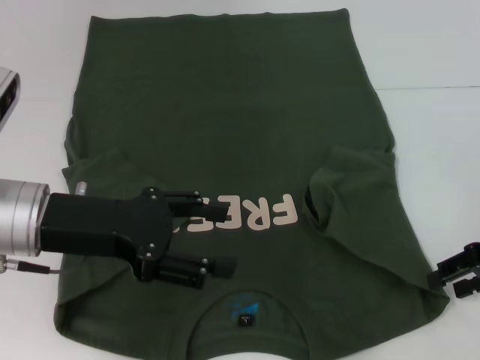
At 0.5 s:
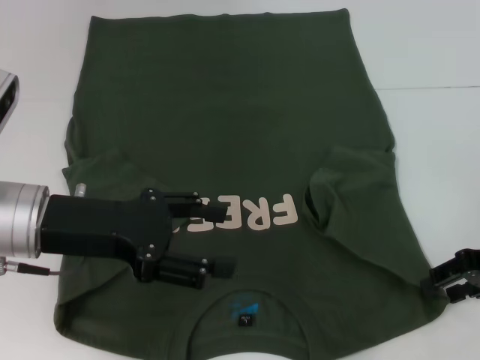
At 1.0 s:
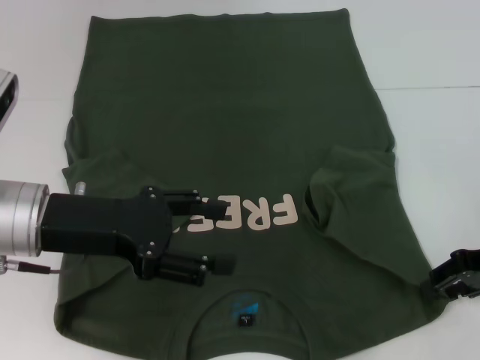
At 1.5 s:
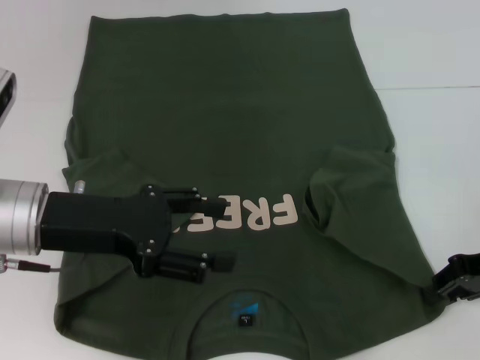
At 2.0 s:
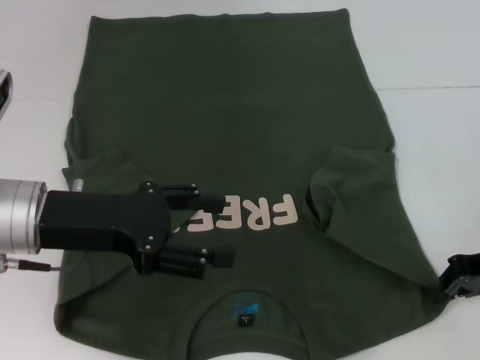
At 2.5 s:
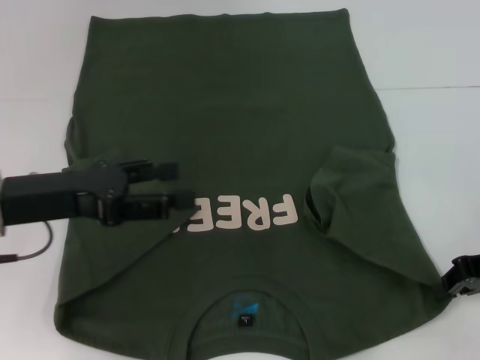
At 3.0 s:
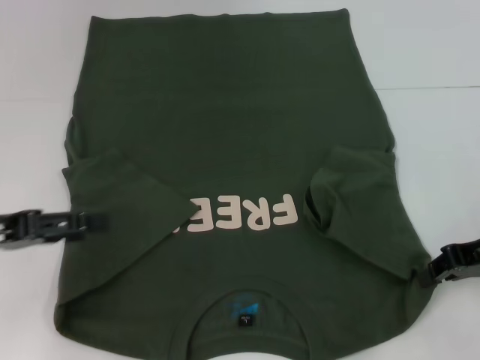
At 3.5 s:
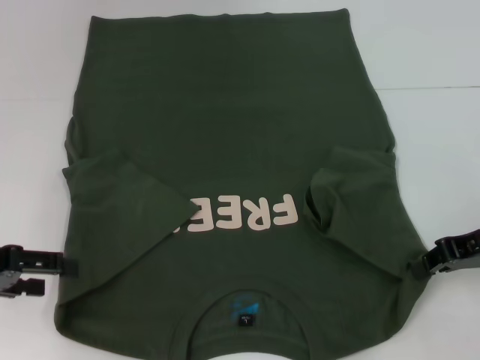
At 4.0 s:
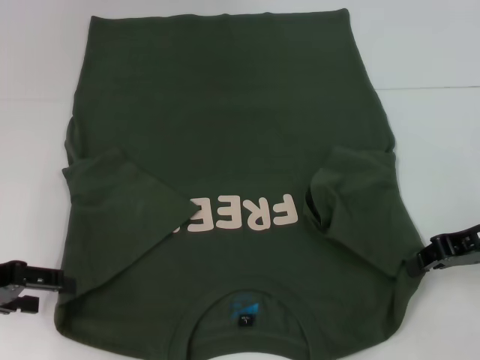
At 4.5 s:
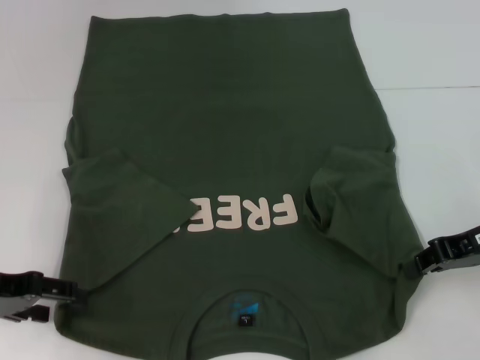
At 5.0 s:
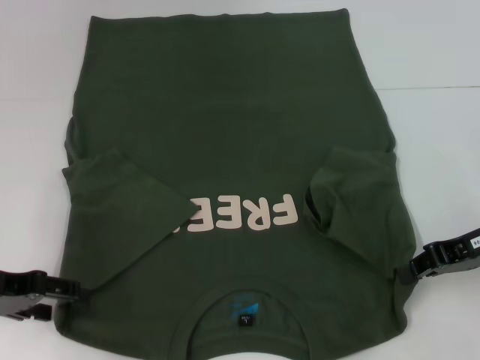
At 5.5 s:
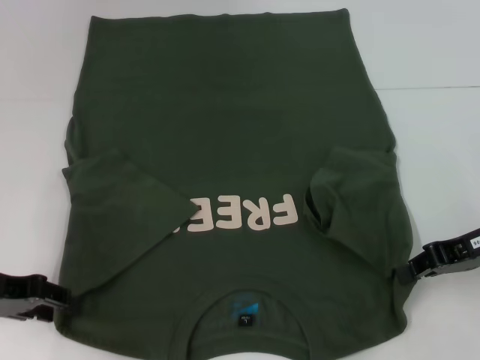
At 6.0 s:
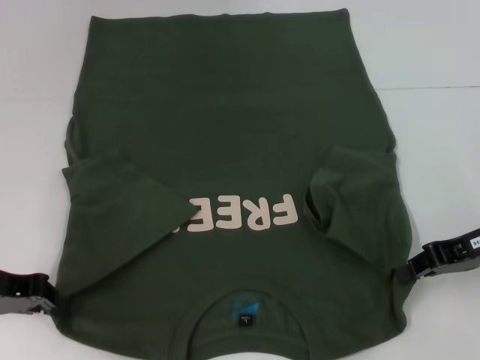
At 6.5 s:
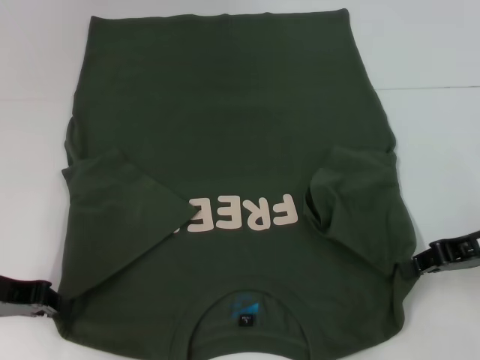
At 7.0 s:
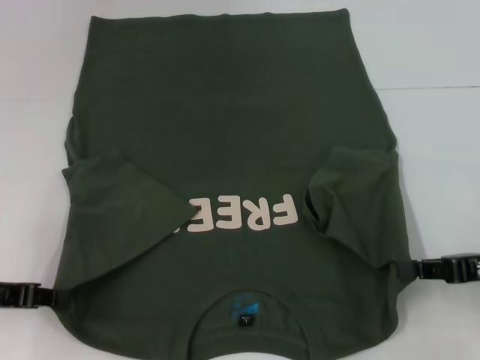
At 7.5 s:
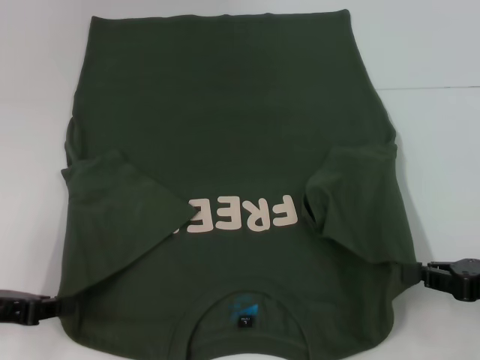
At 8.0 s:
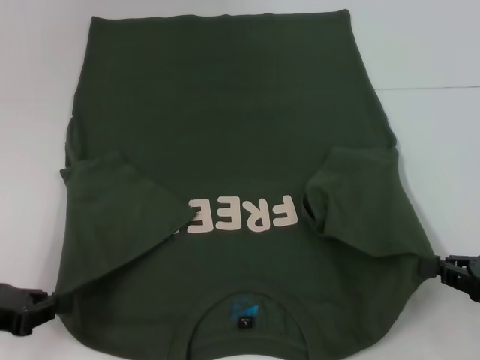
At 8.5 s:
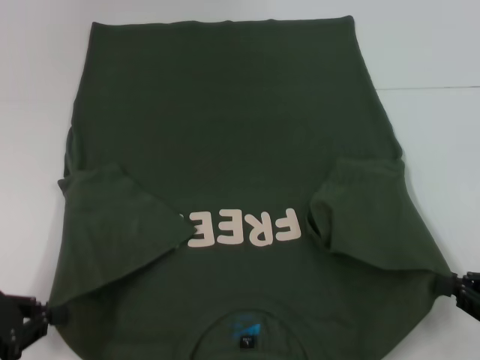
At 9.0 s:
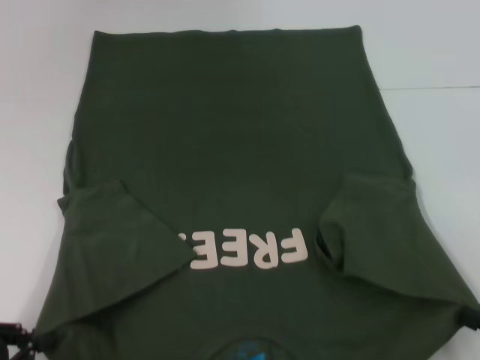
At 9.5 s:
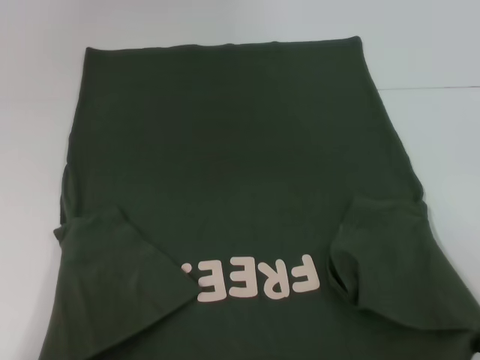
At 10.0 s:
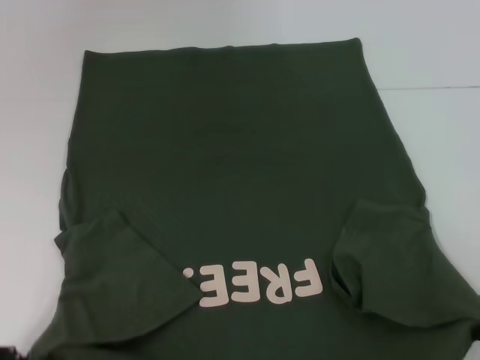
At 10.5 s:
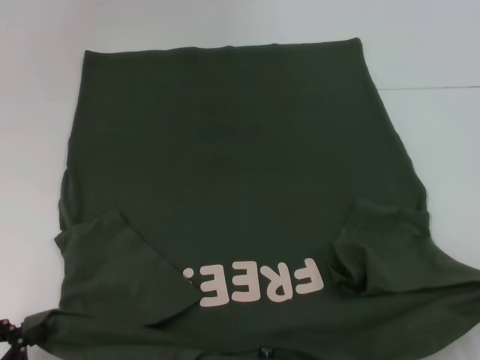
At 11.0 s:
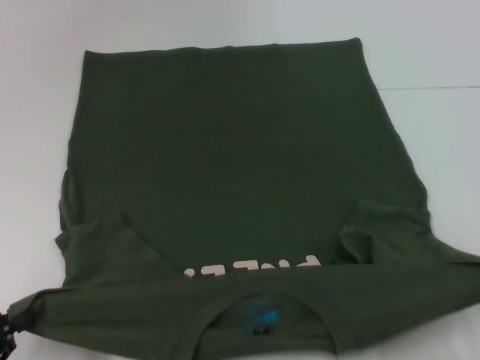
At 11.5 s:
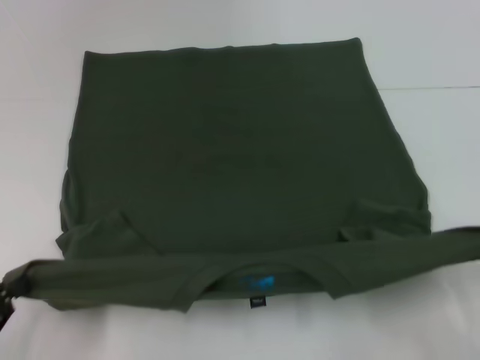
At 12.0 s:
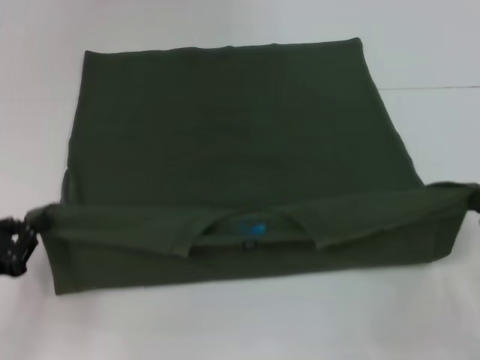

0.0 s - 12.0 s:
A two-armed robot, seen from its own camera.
Step, 0.0 s - 2.5 s: Grab the bottom right corner with your right hand.
Step, 3.0 s - 6.5 s: Grab the bottom left corner with your left hand.
0.0 s - 2.0 s: The right gripper closes up.
2.0 s - 4.0 s: The left gripper travels to the left by approximately 10 cm.
4.0 s - 6.0 s: The left gripper closes.
6.0 s - 8.0 s: The left gripper shifts some 5 cm backward; the right gripper is displaced backward and downward by about 10 cm.
8.0 s - 10.0 s: The two grippers go about 10 cm backward.
10.0 s - 12.0 s: The two grippers go about 10 cm forward.

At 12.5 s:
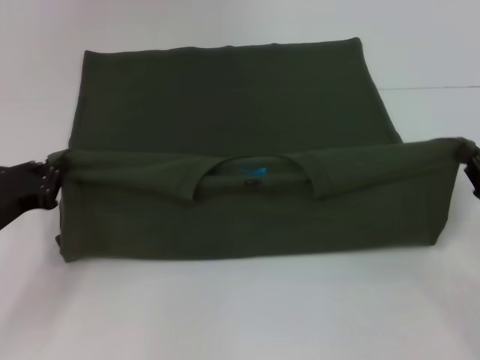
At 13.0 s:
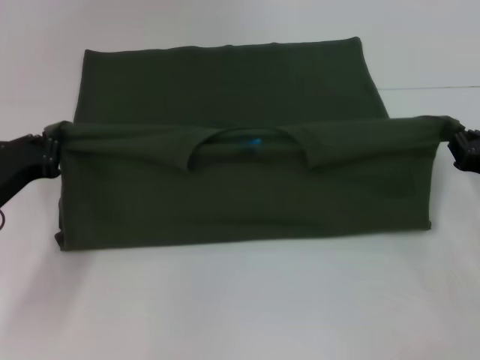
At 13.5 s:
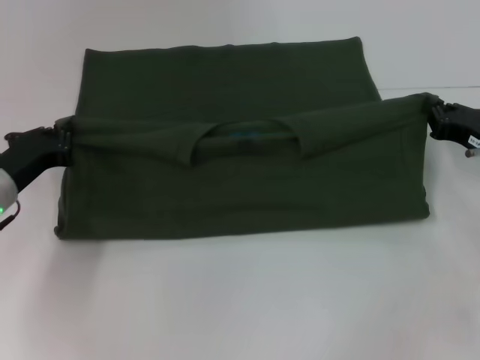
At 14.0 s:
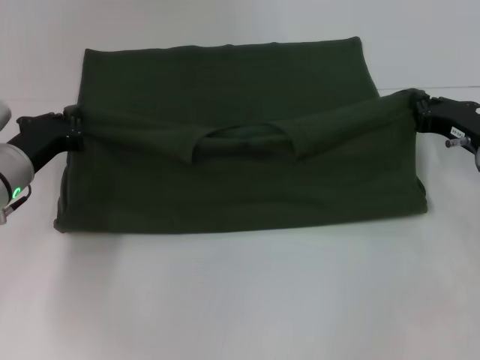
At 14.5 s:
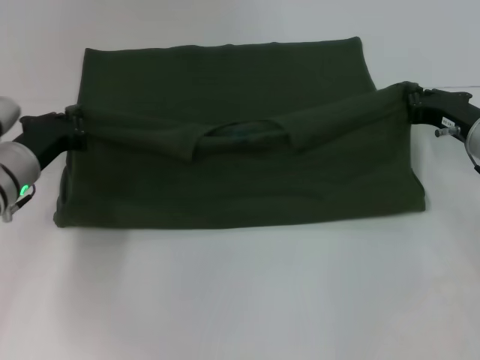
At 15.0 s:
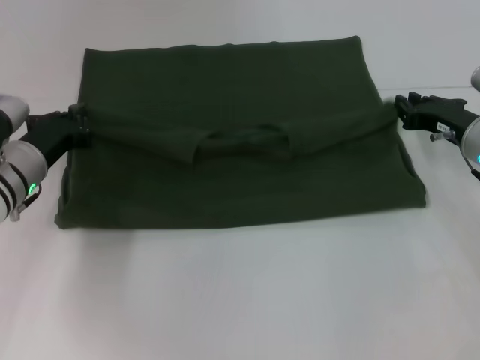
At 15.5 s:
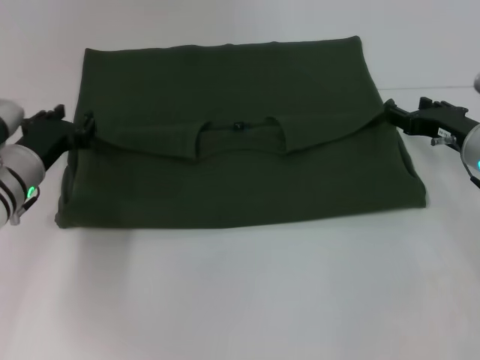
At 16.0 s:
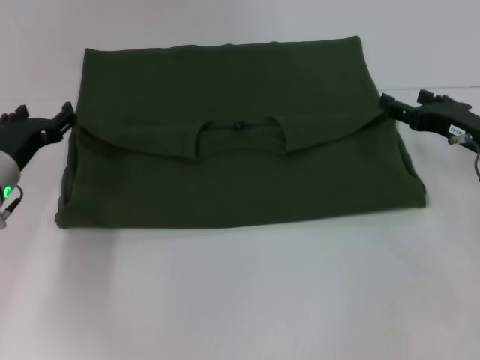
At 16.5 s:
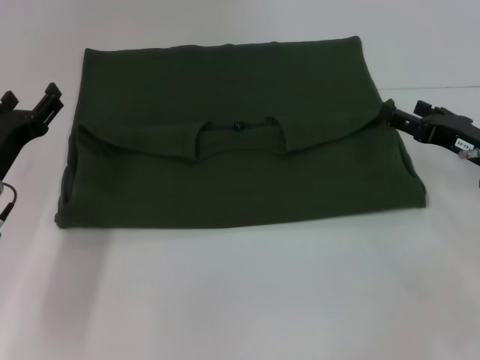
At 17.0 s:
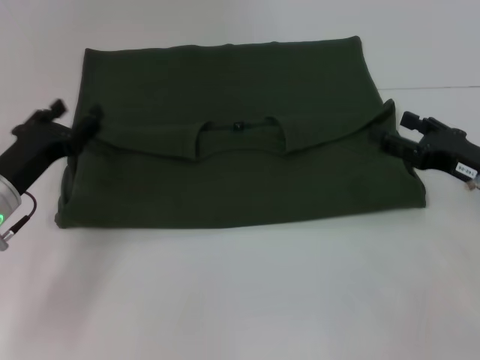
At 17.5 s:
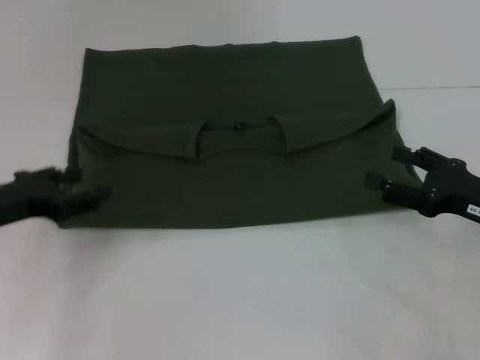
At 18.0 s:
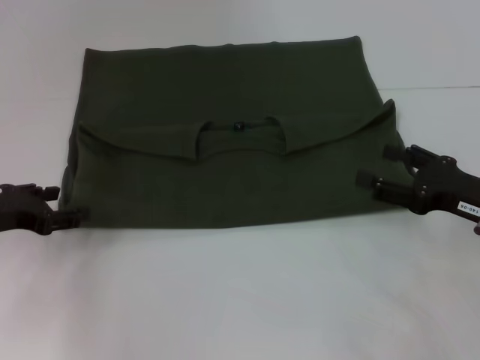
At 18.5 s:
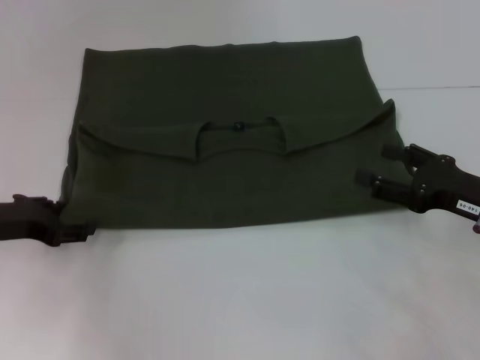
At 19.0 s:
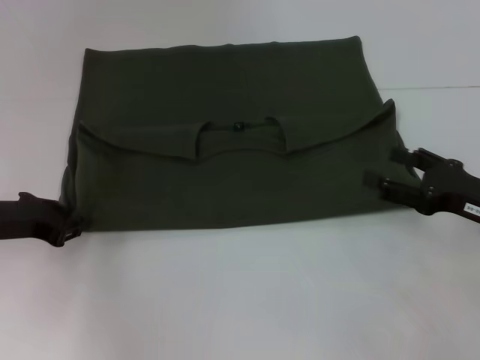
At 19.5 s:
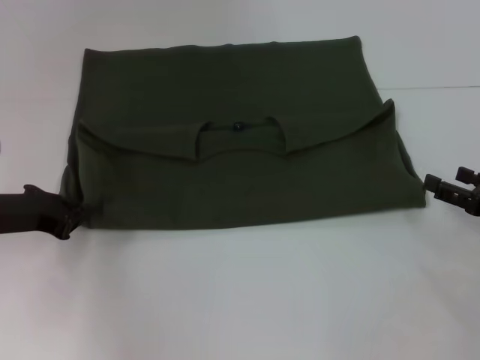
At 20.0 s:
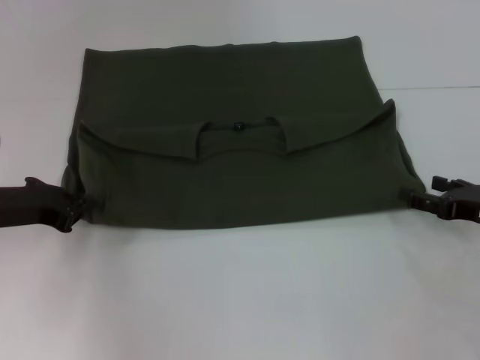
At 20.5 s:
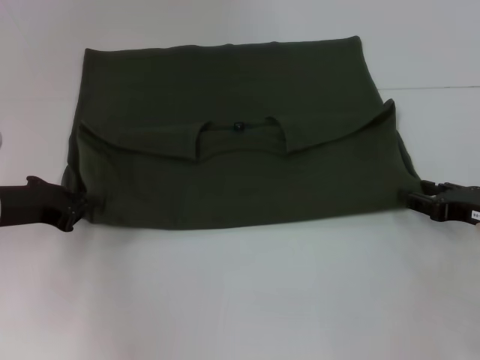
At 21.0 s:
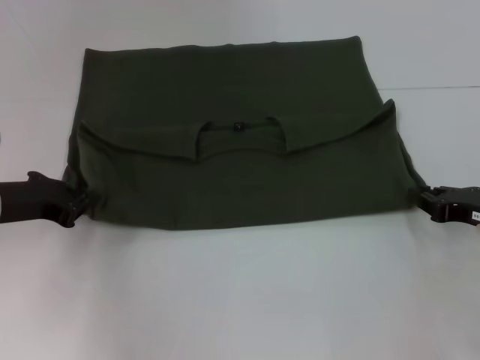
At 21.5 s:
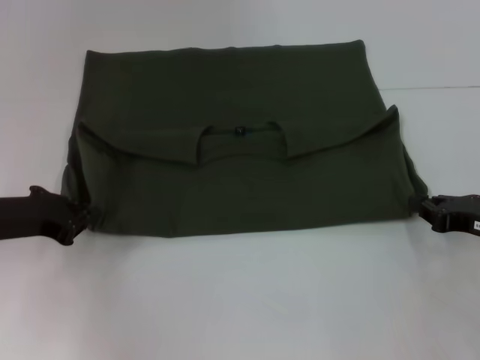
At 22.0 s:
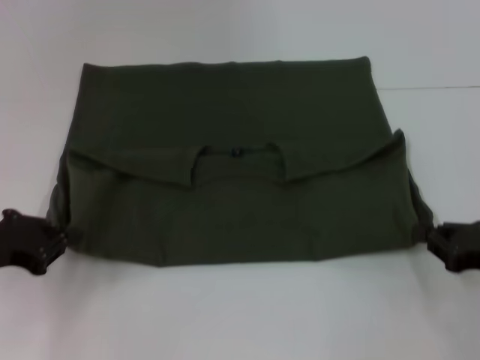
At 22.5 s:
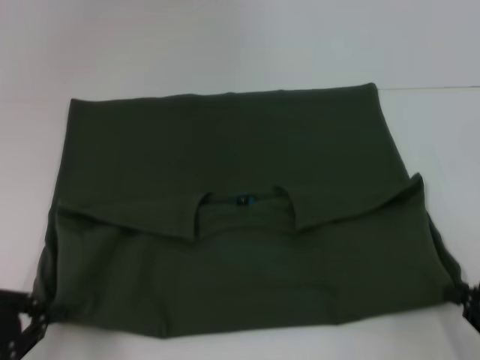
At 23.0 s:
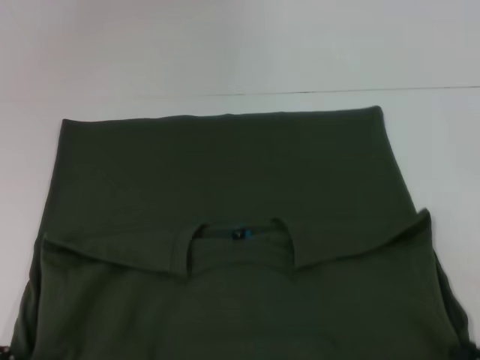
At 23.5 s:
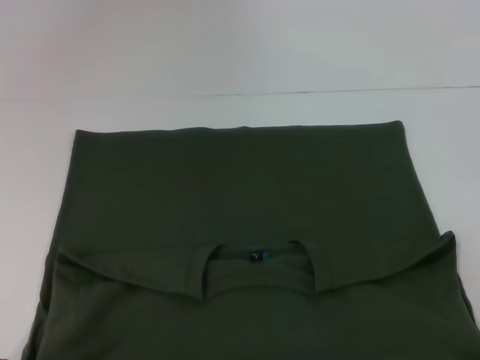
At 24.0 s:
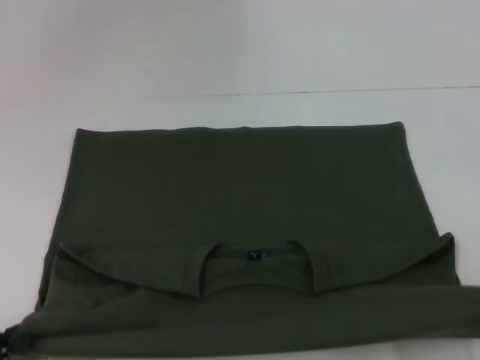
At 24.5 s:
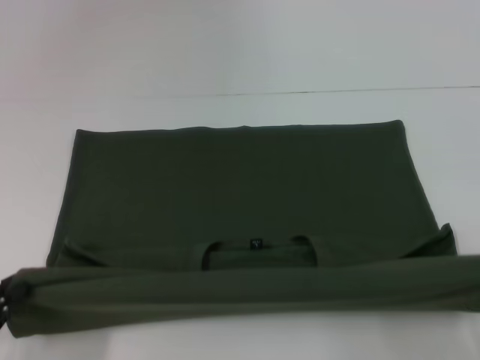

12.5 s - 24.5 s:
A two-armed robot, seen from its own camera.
Step, 12.5 s - 16.0 s: Fold the clothes with your left hand.
Step, 12.5 s - 16.0 s: Fold the clothes with your right hand.
Step, 16.5 s - 23.0 s: Pull the clothes with your left hand.
Step, 16.5 s - 23.0 s: Pull the clothes with your right hand.
12.5 s - 14.5 s: The left gripper heads forward and to the right, covering about 10 cm. Meanwhile the right gripper moves forward and to the left, roughly 15 cm.
14.5 s - 16.5 s: The left gripper opens, while the right gripper opens its fingers.
16.5 s - 18.5 s: The right gripper heads backward, covering roughly 5 cm.
18.5 s - 20.5 s: The left gripper closes.
20.5 s - 22.5 s: The two grippers go roughly 15 cm backward. The right gripper closes its fingers.

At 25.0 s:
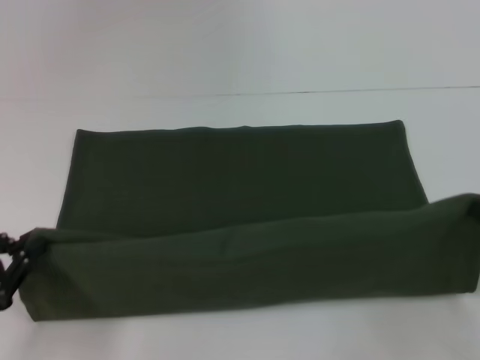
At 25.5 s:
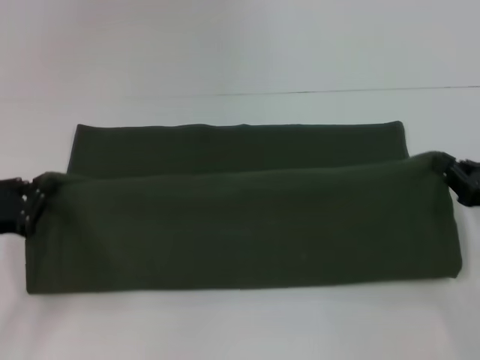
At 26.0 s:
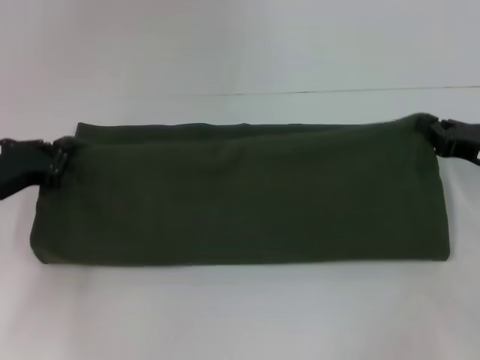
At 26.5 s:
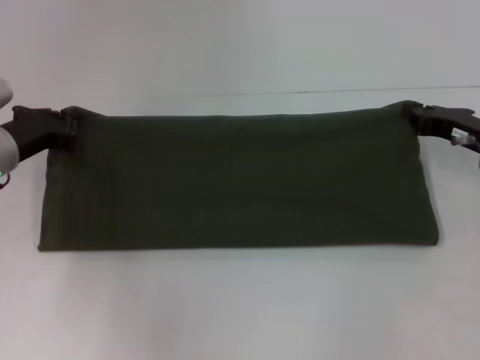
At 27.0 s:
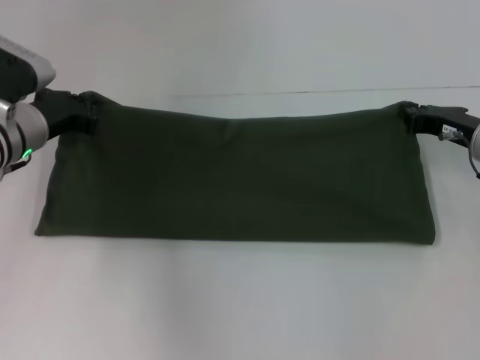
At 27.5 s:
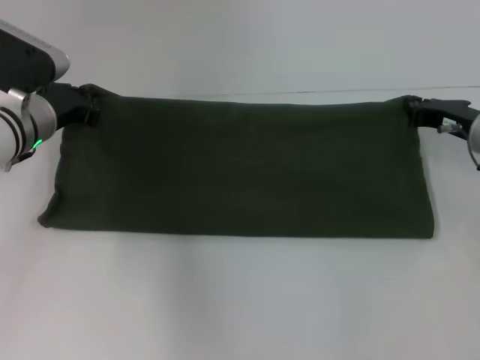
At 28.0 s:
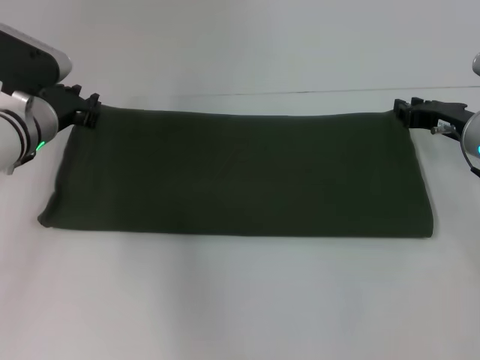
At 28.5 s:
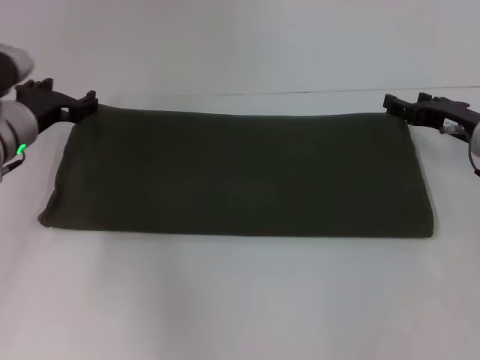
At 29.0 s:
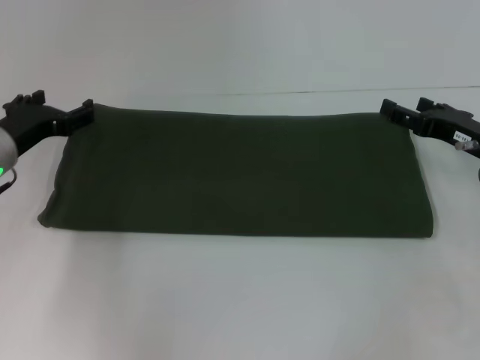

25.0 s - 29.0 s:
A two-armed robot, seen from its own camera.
Step, 25.0 s - 28.5 s: Fold the clothes with your right hand.
25.0 s - 27.0 s: The left gripper goes approximately 25 cm forward and to the right. Meanwhile the right gripper is displaced forward by about 20 cm.
27.0 s - 29.0 s: The left gripper opens. The right gripper opens up.
